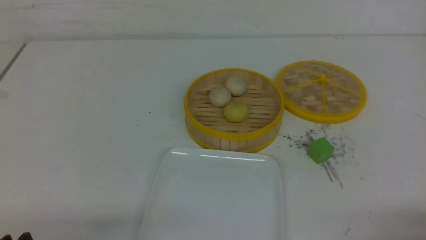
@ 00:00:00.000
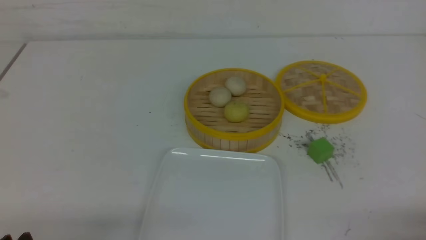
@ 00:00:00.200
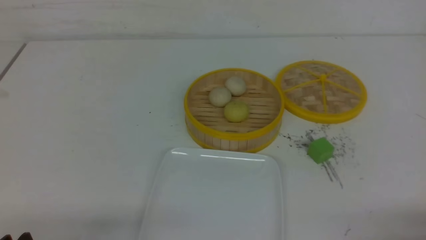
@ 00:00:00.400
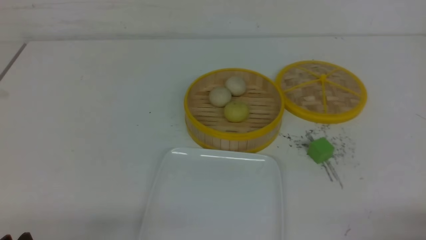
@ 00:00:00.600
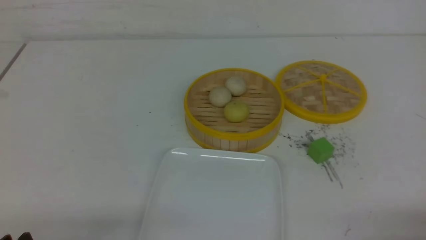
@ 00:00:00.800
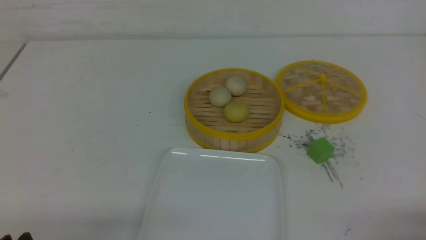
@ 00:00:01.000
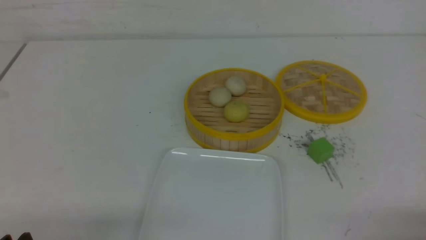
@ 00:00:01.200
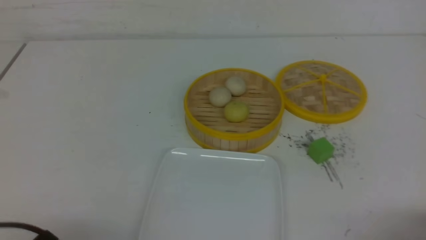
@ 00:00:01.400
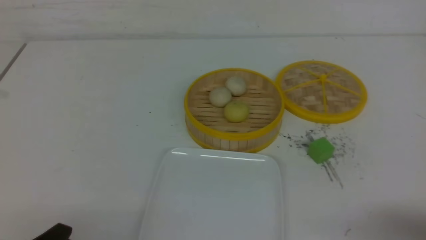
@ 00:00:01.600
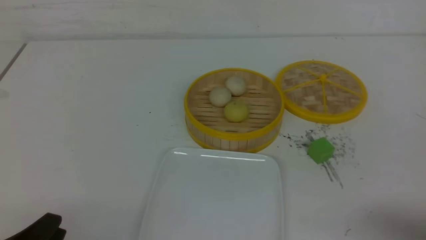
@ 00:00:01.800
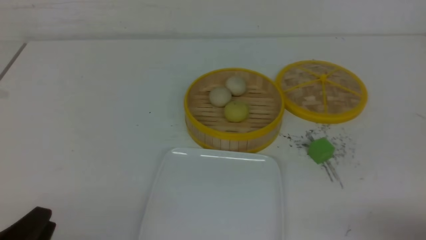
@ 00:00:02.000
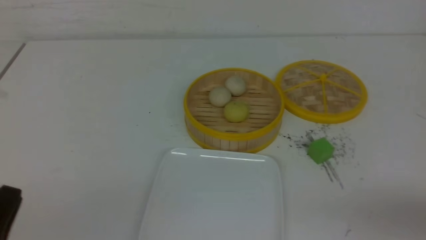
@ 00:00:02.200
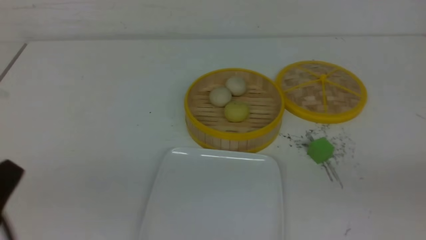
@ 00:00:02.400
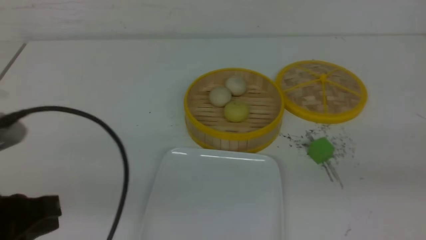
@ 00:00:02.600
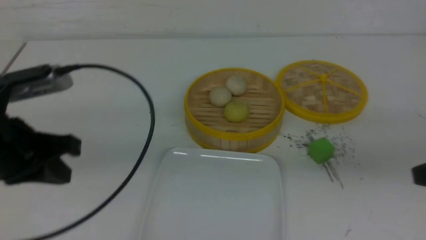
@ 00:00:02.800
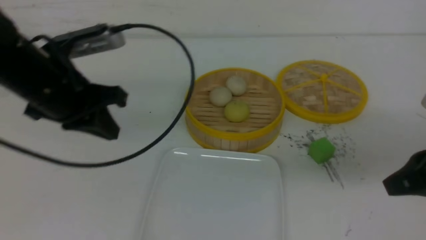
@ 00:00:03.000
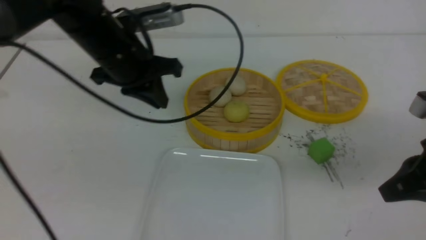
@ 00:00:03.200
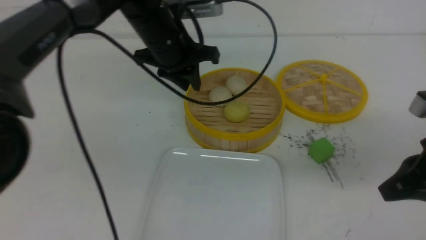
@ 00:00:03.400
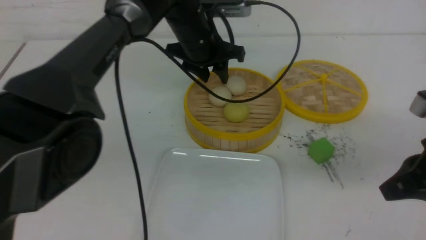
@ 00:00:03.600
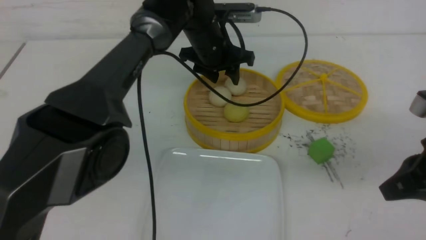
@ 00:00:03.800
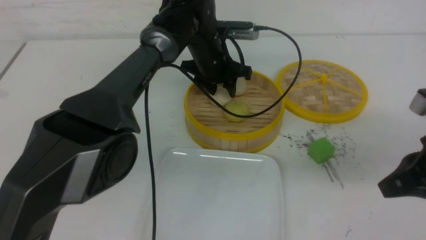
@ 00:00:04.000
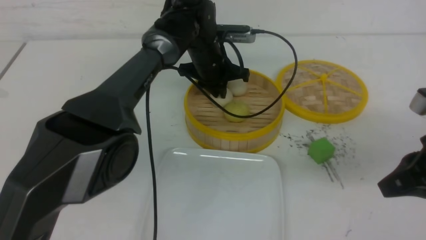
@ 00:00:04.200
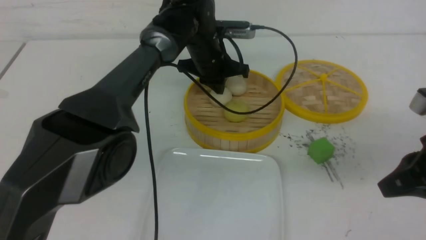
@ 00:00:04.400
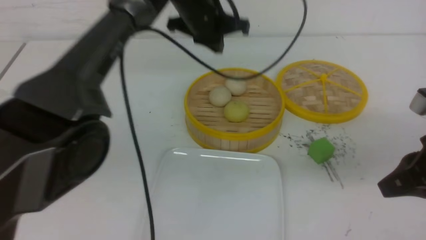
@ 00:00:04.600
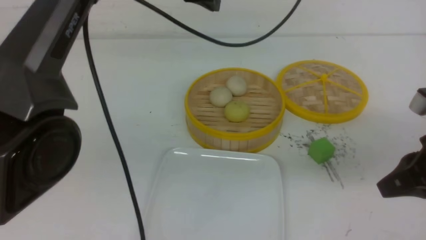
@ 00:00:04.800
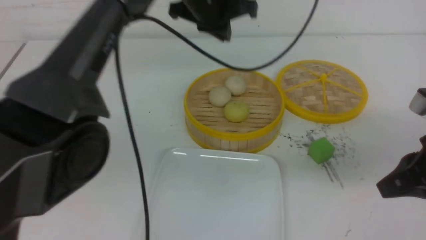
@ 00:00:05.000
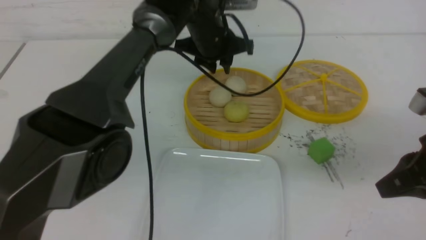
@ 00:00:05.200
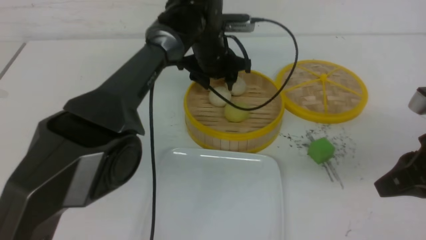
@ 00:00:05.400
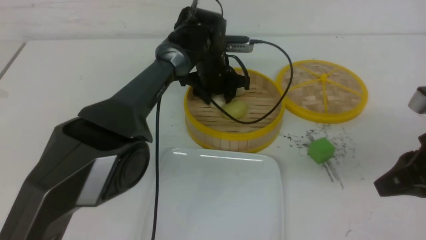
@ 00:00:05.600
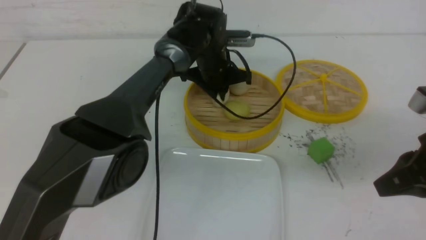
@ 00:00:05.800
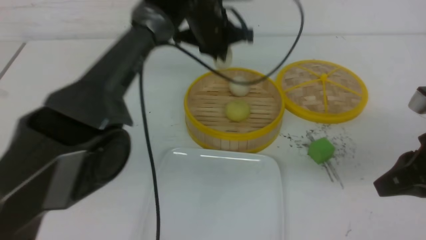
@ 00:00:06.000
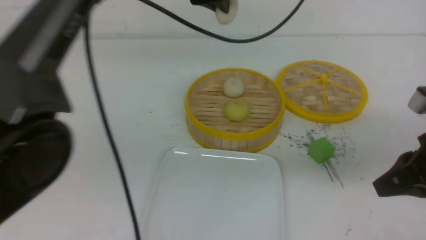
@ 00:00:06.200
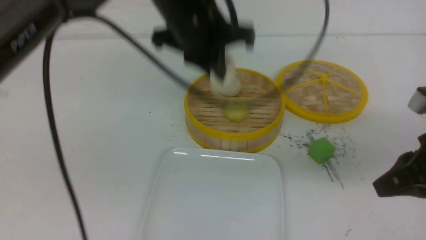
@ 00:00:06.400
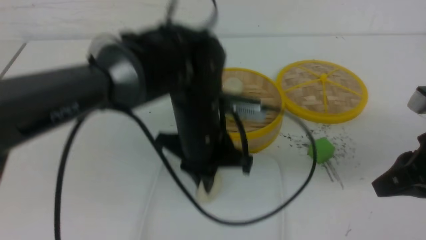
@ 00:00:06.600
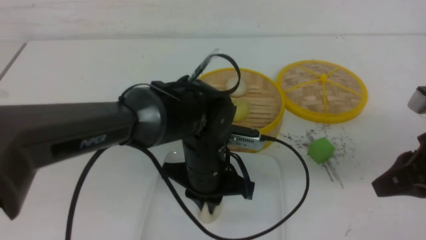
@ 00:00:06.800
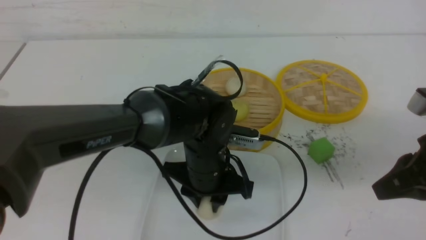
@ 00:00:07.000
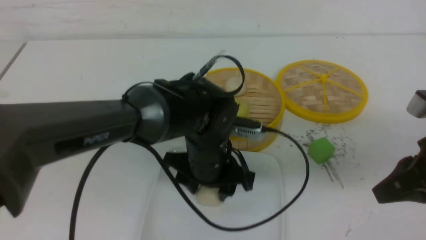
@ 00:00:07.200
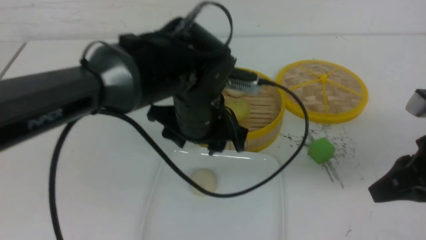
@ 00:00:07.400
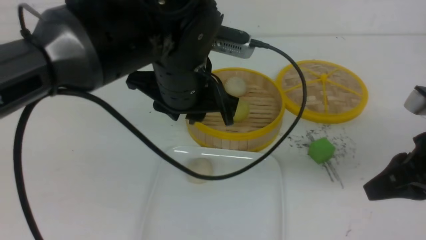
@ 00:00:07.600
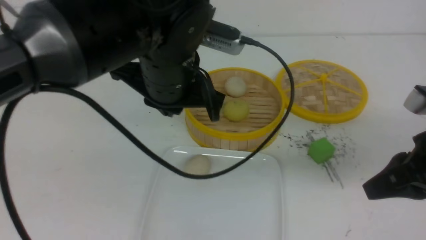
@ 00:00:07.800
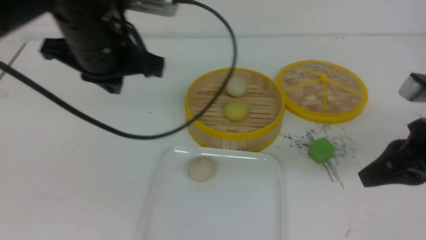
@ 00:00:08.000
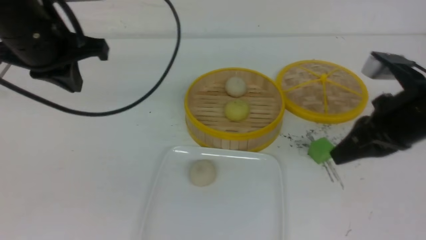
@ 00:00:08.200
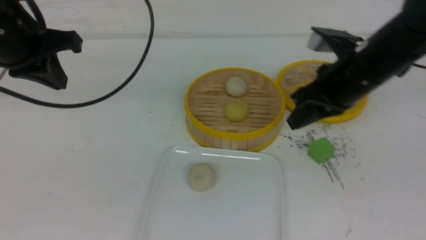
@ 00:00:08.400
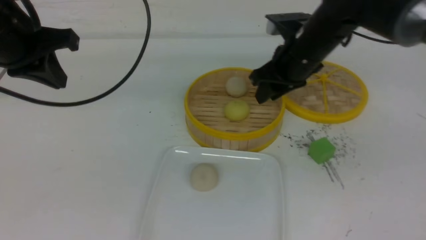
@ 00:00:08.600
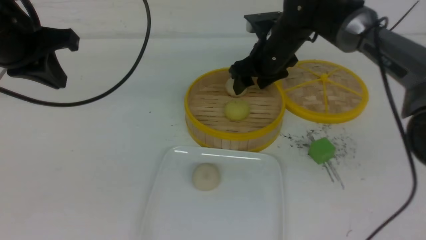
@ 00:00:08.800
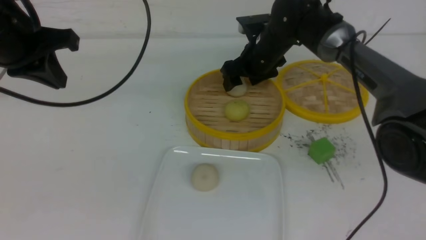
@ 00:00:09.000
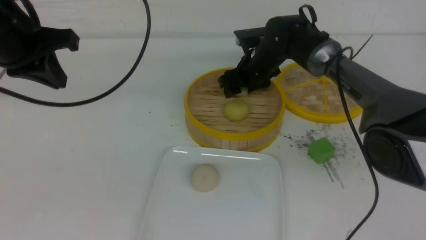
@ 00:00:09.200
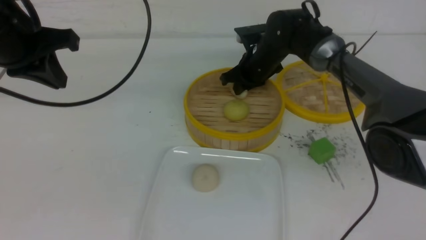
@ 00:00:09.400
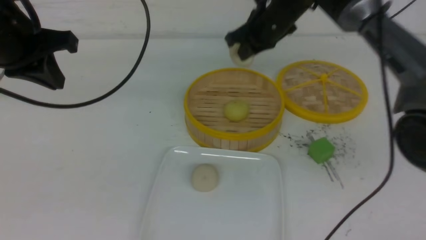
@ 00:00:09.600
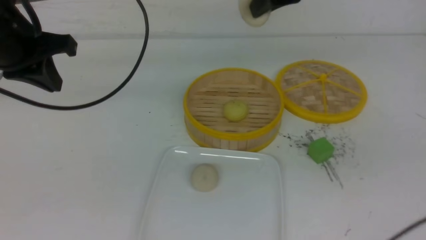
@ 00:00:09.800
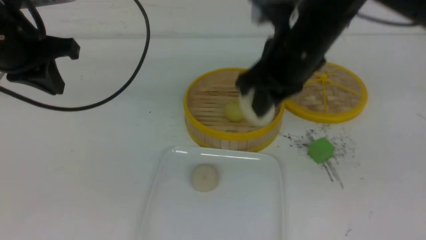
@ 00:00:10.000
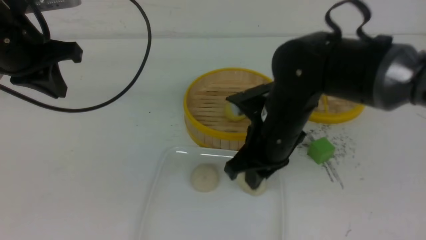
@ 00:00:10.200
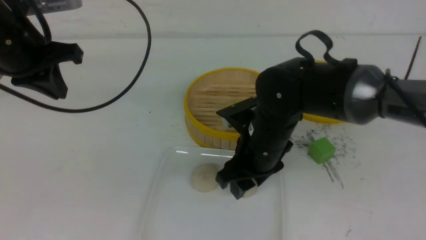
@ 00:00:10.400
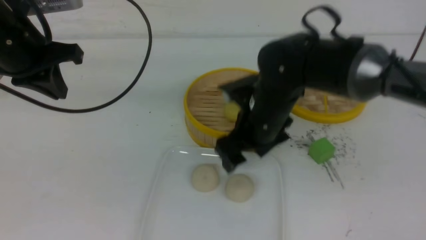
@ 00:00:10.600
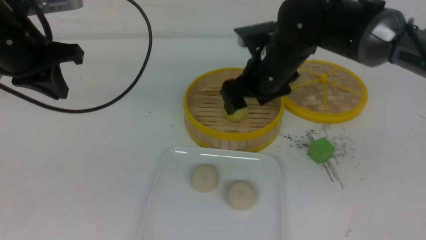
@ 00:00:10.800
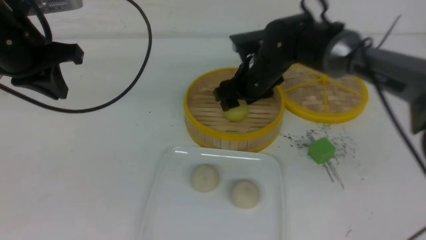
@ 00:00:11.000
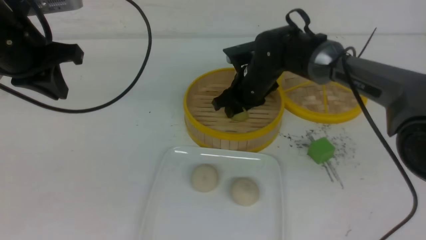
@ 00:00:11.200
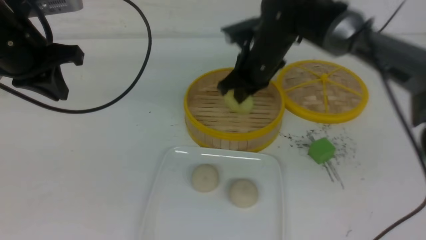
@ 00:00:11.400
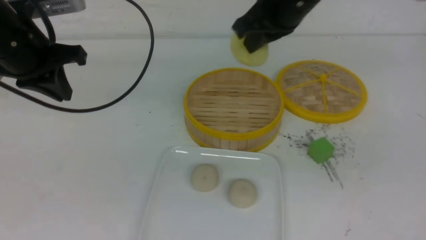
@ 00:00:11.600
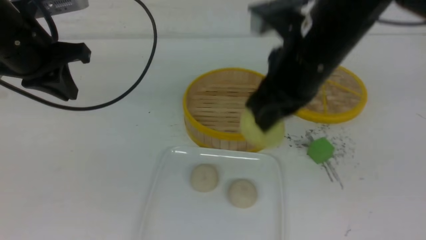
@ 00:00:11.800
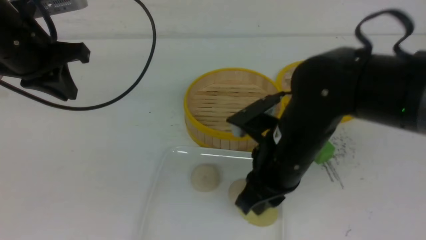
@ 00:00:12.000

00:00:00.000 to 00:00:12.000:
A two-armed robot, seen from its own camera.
Step, 00:00:00.000 to 00:00:05.600: use the left arm to grab the steamed stuffed bun that is closest to it.
Step, 00:00:05.800 to 00:00:07.000: use the left arm to put the steamed stuffed bun into the plate.
Step, 00:00:07.400 to 00:00:09.400: use the right arm to grab the steamed stuffed bun that is closest to it.
Step, 00:00:09.600 to 00:00:10.400: use the right arm to put the steamed stuffed bun into the plate.
Step, 00:00:10.600 to 00:00:11.200: use the right arm to grab the steamed stuffed bun that is closest to it.
00:00:01.600 to 00:00:03.000: The left gripper shifts about 30 cm forward and upward, and closes up. Meanwhile the right gripper moves forward and upward, roughly 15 cm, and closes its fingers.
00:00:03.000 to 00:00:04.400: The left gripper shifts some 25 cm forward and to the right, and opens, then closes again.
00:00:04.400 to 00:00:06.000: The left gripper moves up and down over approximately 15 cm, changing direction 2 times, and opens, then closes again.
00:00:06.000 to 00:00:07.600: The left gripper goes up and down, about 20 cm each way, reversing 2 times, and opens.
00:00:07.600 to 00:00:09.000: The right gripper shifts roughly 35 cm forward and to the left, and opens its fingers. Meanwhile the left gripper is displaced to the left by about 20 cm, and closes.
00:00:09.000 to 00:00:10.400: The right gripper heads backward, covering approximately 20 cm, and closes, then opens again.
00:00:10.400 to 00:00:12.000: The right gripper moves some 15 cm forward and comes back, and closes up.

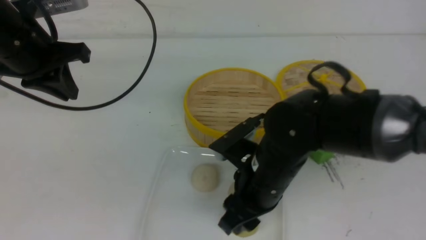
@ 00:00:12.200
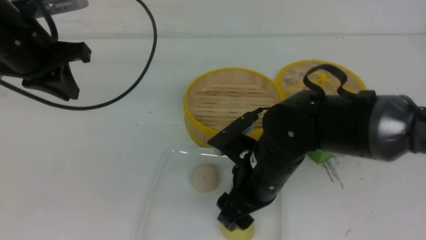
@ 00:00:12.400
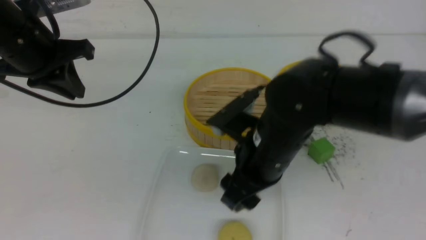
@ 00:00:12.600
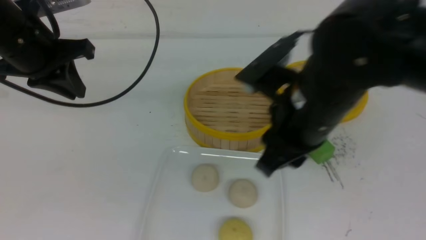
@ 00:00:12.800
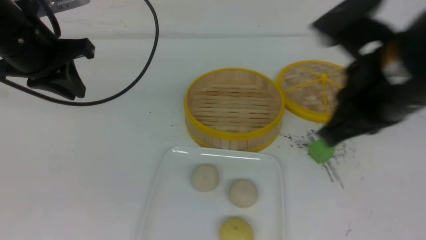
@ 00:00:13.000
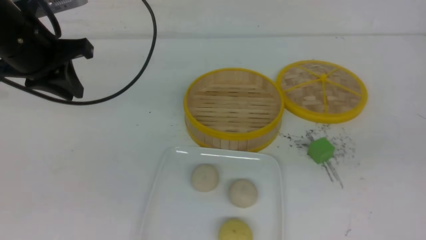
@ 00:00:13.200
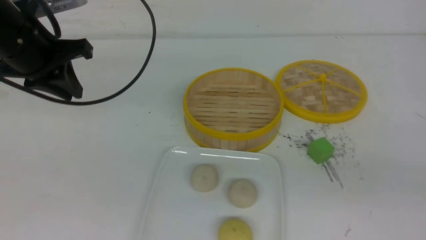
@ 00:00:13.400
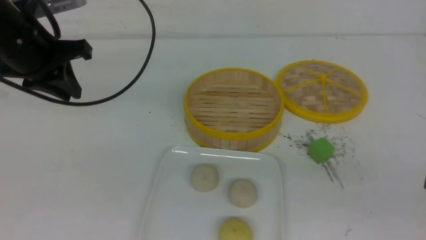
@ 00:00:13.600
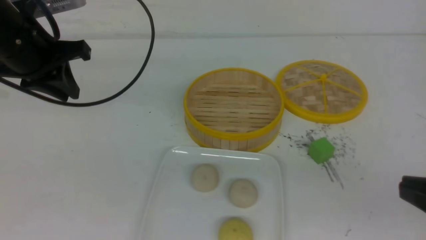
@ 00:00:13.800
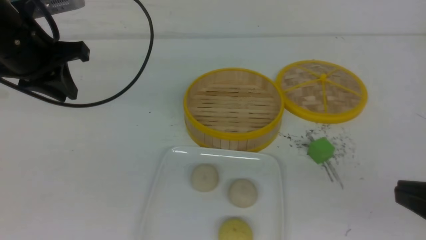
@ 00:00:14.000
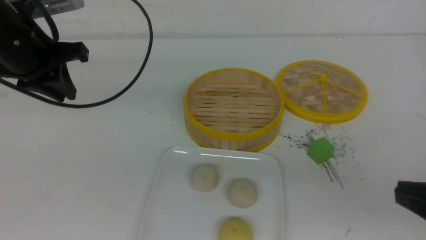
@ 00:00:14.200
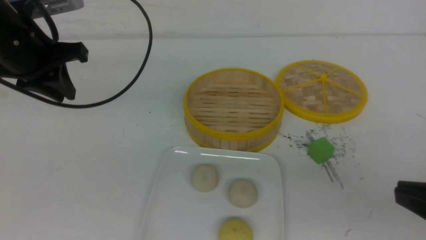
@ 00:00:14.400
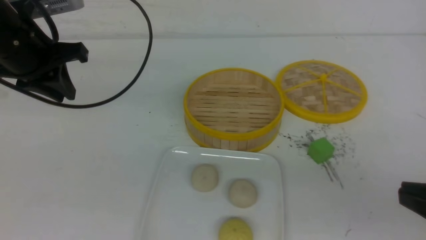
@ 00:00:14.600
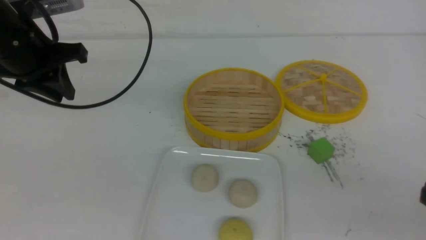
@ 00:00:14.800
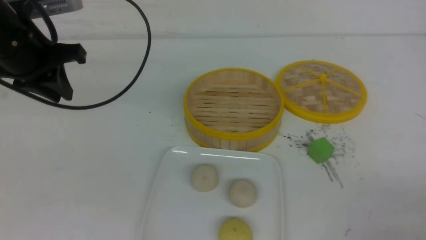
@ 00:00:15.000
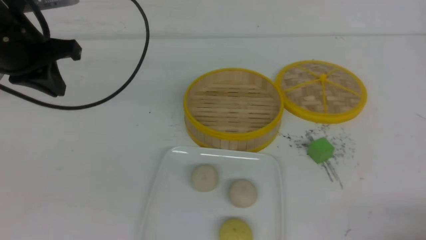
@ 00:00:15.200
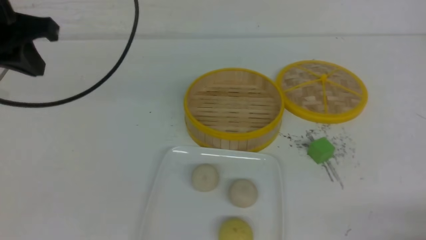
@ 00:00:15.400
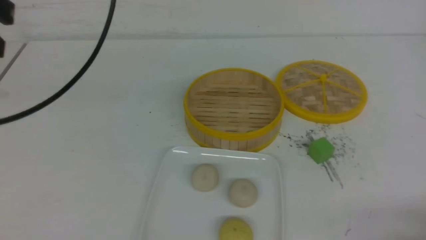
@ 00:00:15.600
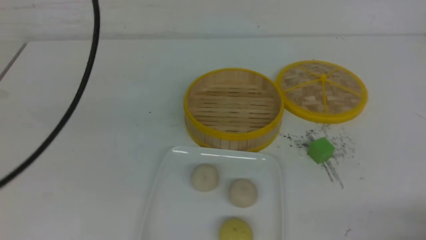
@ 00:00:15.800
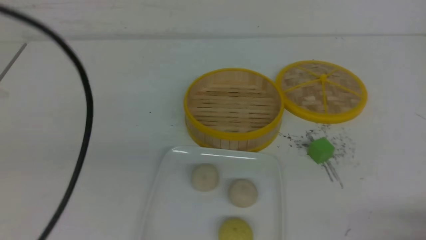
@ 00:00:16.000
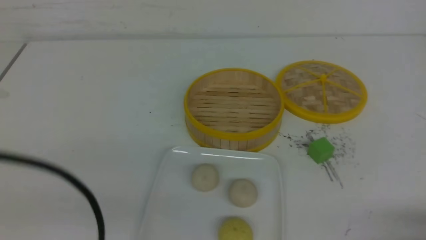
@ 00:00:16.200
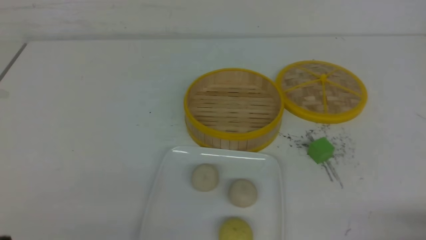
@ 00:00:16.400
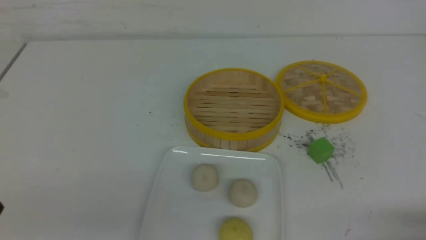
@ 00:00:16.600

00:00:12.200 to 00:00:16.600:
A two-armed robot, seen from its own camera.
00:00:12.200 to 00:00:13.600: The right gripper travels to the right, backward and upward by approximately 30 cm, and closes its fingers.
00:00:13.600 to 00:00:15.200: The right gripper shifts about 15 cm downward.
00:00:15.200 to 00:00:16.600: The left gripper heads backward, covering roughly 30 cm.
